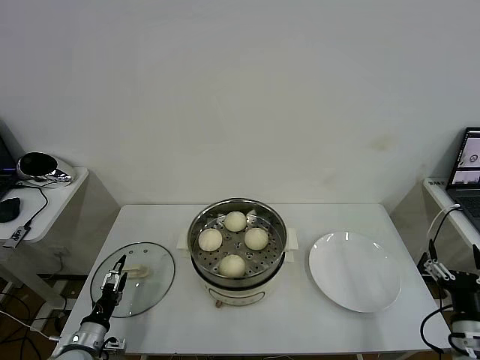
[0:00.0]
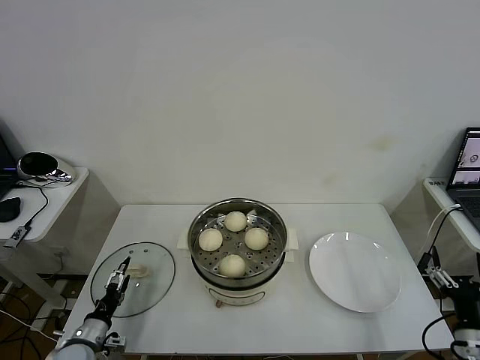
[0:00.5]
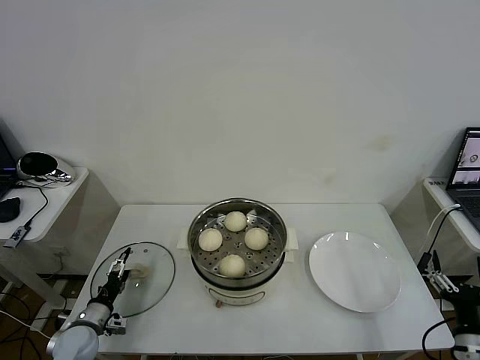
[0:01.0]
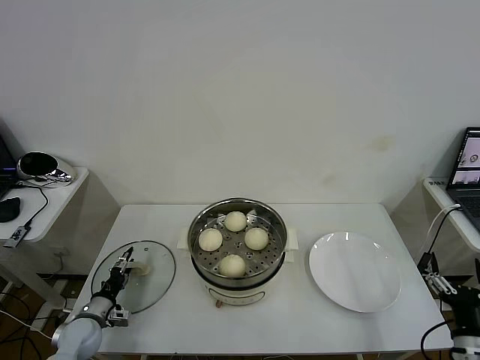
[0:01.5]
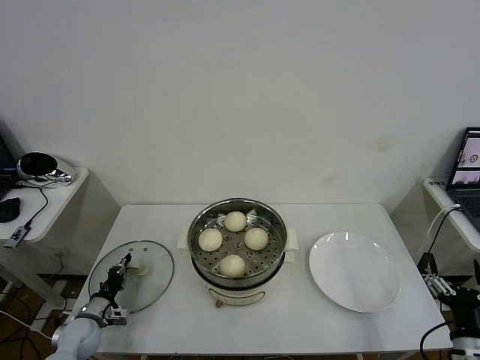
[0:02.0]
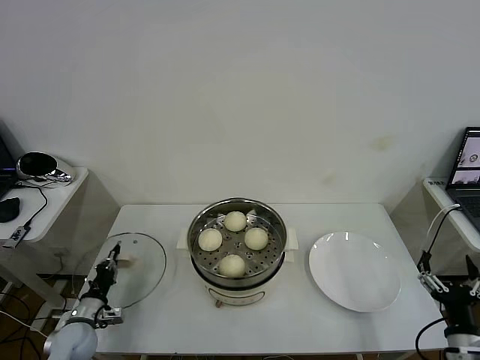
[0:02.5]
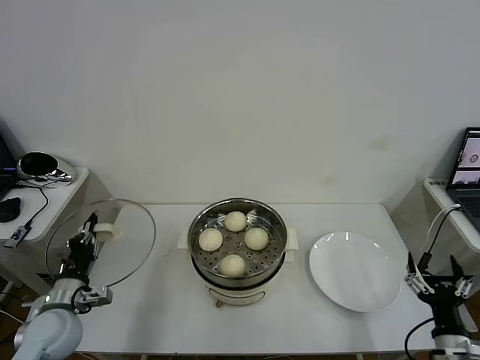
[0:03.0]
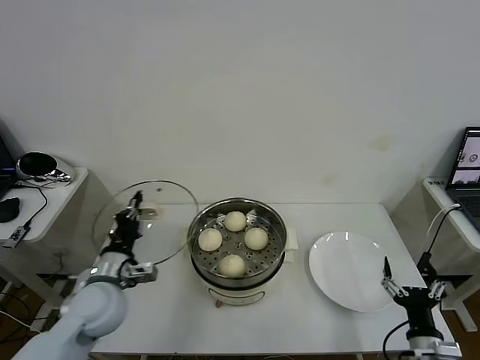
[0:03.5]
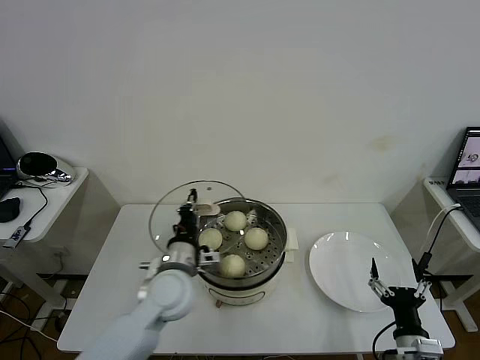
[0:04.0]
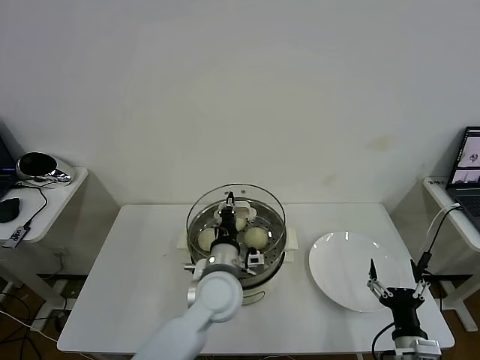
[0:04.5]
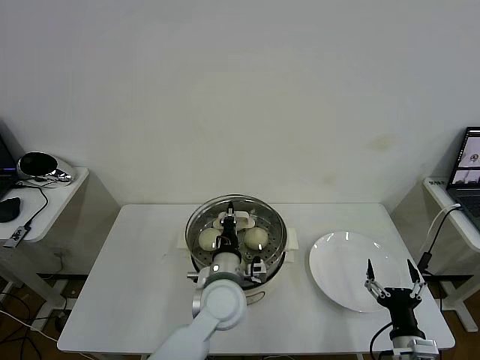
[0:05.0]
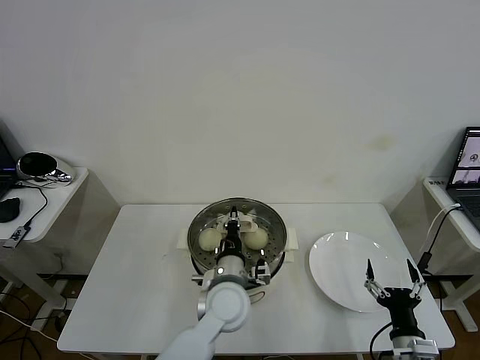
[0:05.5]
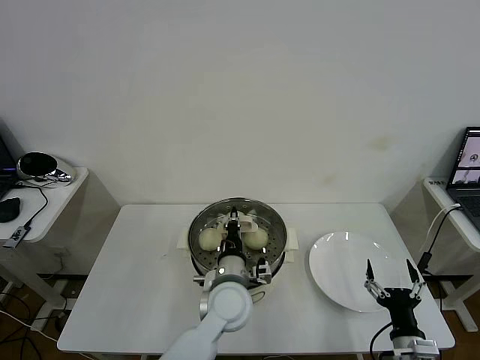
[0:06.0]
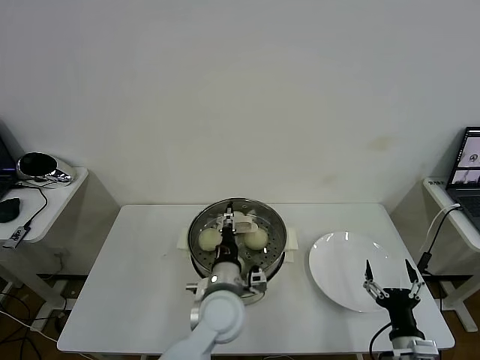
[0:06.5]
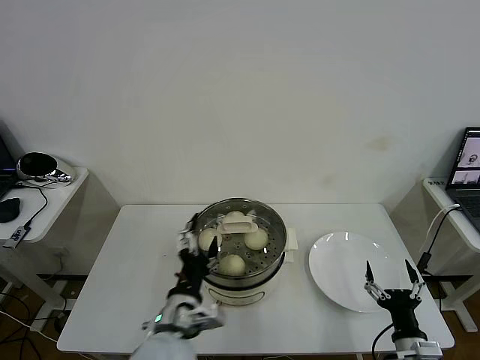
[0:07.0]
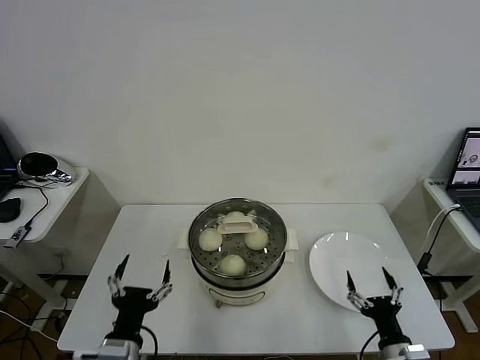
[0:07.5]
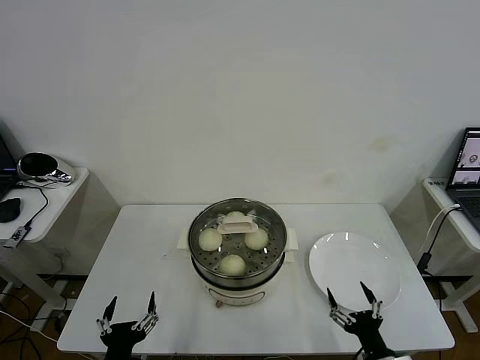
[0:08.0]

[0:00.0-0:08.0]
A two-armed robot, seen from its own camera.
Task of the whole recording: take steamed baozi put them in steamer then cover it.
Step, 0:00.0 to 0:02.0: Grasp the pot lid with left gripper.
Step, 0:02.5 to 0:06.5: Place the pot lid on the steamer with left gripper.
0:00.0 to 0:02.0: The left gripper moves forward, some 10 cm, and closes.
0:02.0 to 0:04.0: The right gripper heads to the left, covering some 10 cm; the left gripper heads to the right and upward, covering about 35 cm.
0:04.0 to 0:06.0: The left gripper shifts roughly 15 cm to the right.
0:06.0 to 0:08.0: The left gripper heads backward and to the left, covering about 30 cm, and opens.
